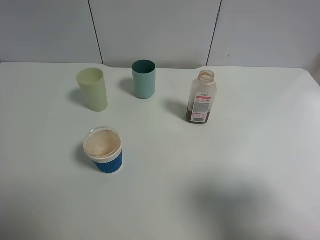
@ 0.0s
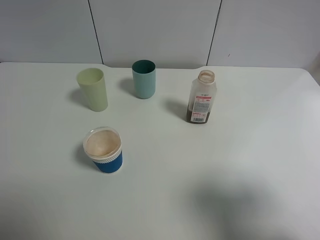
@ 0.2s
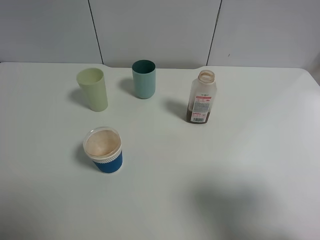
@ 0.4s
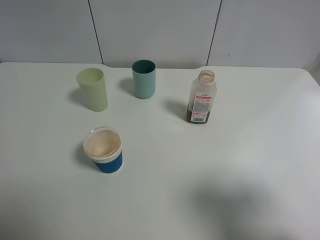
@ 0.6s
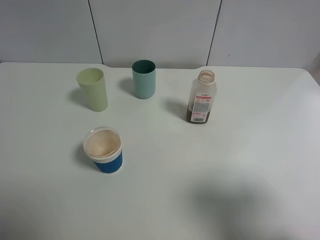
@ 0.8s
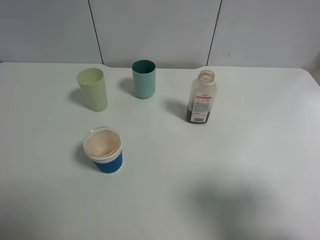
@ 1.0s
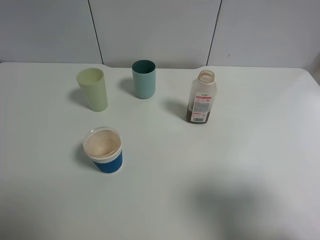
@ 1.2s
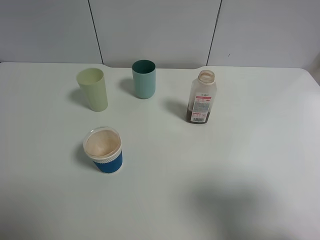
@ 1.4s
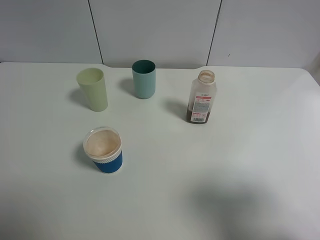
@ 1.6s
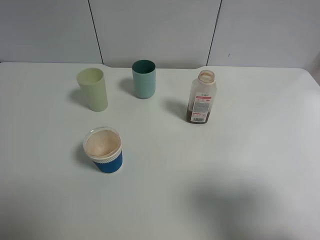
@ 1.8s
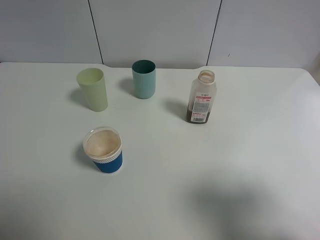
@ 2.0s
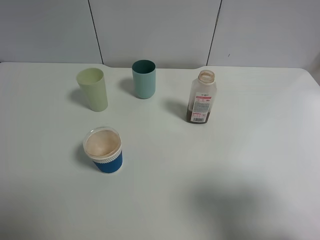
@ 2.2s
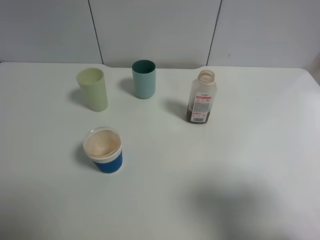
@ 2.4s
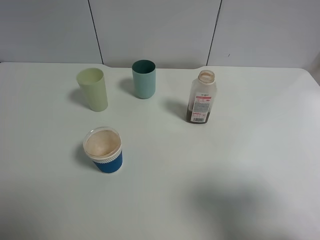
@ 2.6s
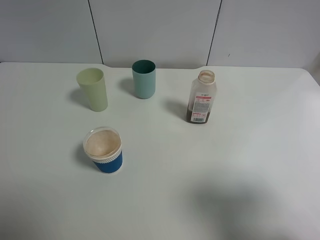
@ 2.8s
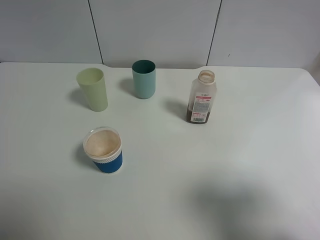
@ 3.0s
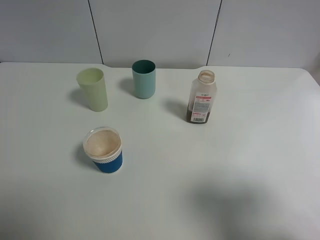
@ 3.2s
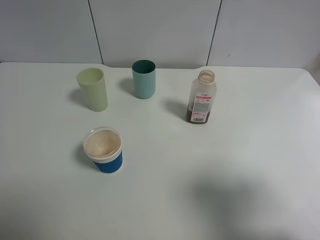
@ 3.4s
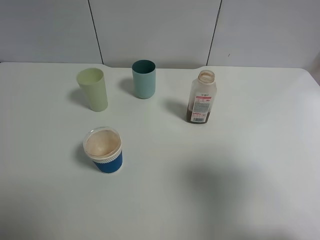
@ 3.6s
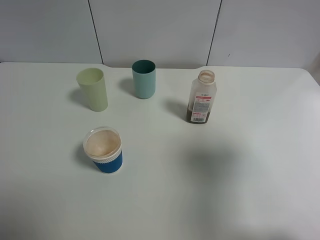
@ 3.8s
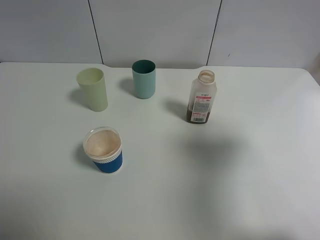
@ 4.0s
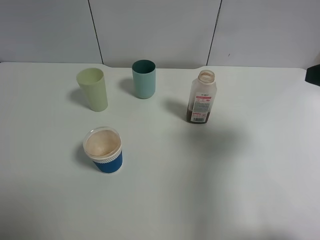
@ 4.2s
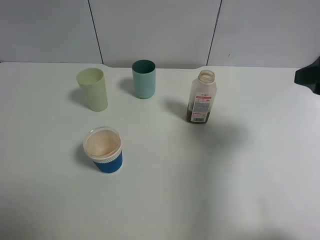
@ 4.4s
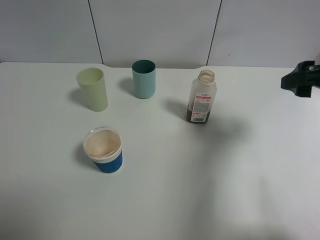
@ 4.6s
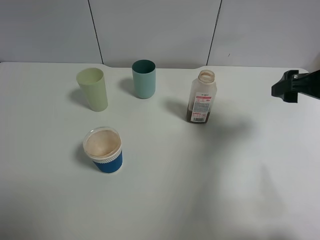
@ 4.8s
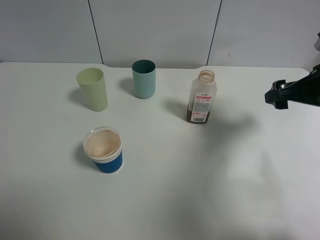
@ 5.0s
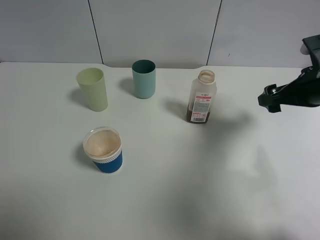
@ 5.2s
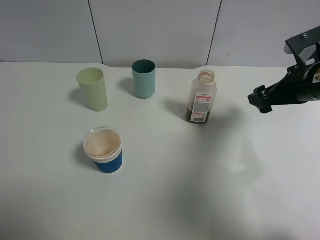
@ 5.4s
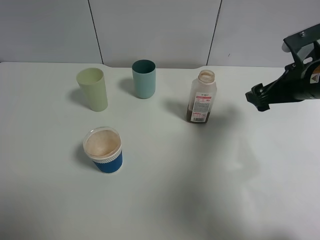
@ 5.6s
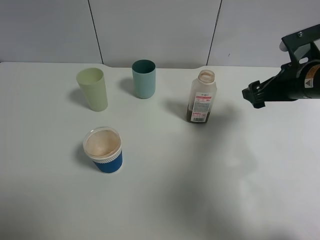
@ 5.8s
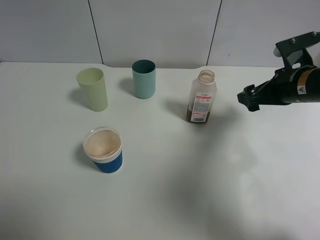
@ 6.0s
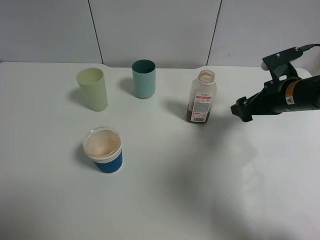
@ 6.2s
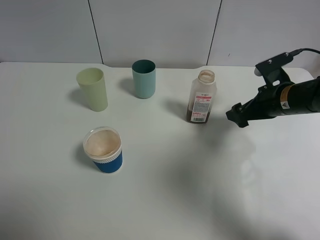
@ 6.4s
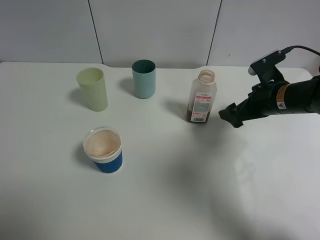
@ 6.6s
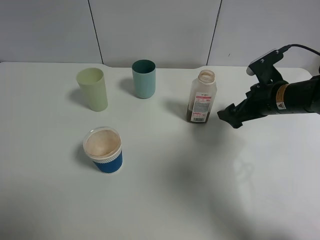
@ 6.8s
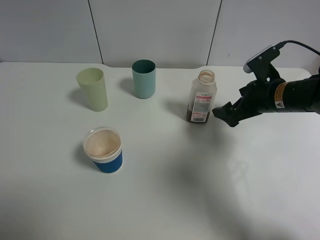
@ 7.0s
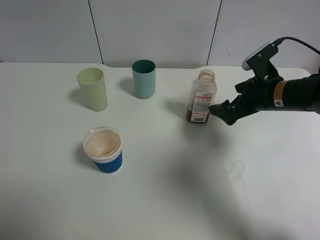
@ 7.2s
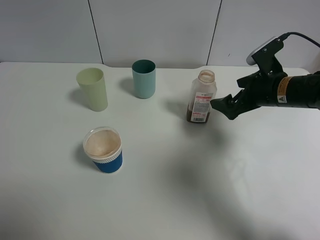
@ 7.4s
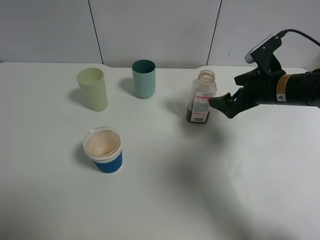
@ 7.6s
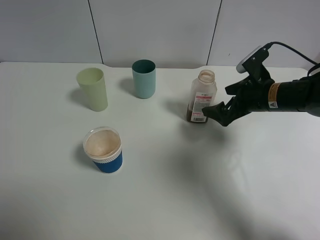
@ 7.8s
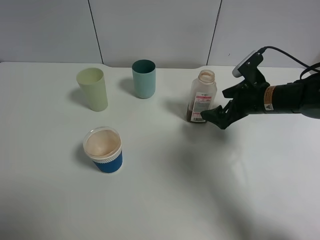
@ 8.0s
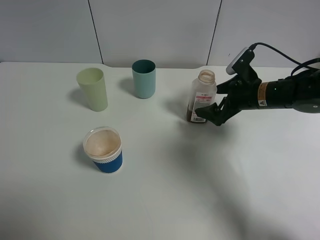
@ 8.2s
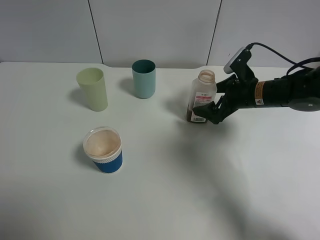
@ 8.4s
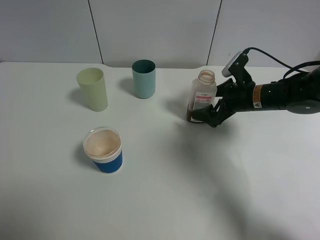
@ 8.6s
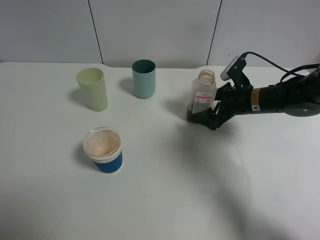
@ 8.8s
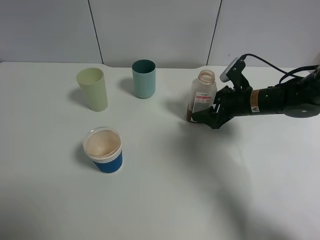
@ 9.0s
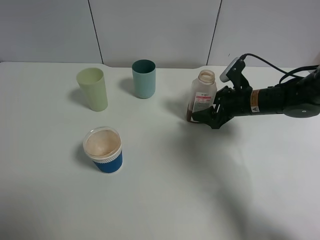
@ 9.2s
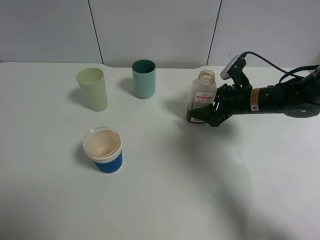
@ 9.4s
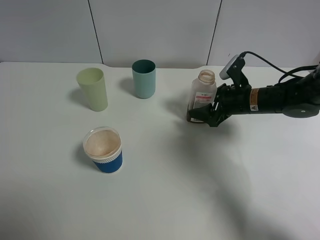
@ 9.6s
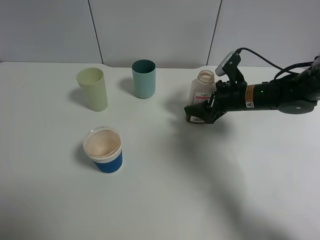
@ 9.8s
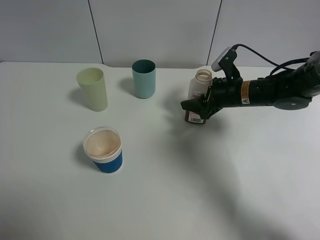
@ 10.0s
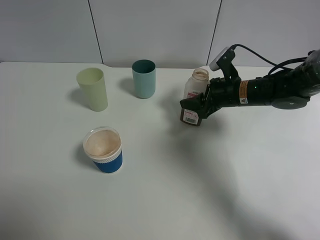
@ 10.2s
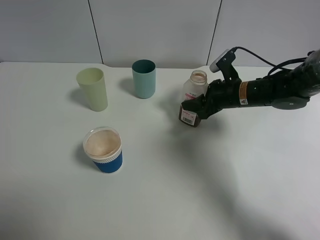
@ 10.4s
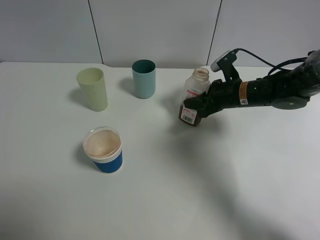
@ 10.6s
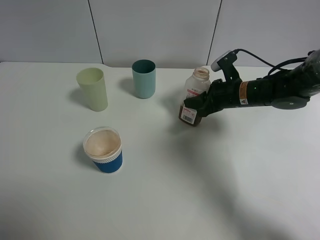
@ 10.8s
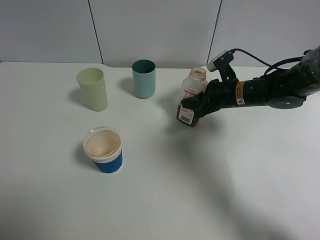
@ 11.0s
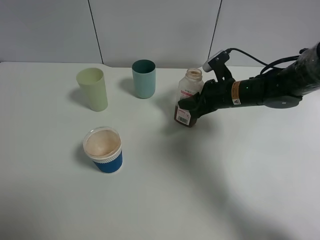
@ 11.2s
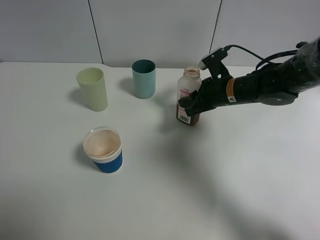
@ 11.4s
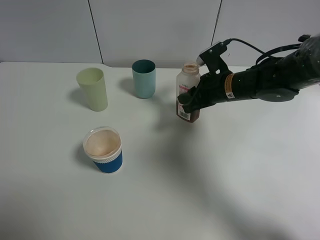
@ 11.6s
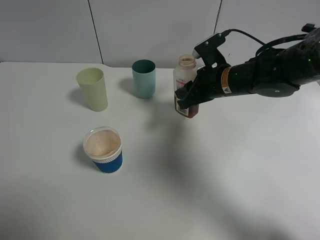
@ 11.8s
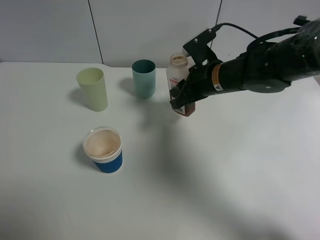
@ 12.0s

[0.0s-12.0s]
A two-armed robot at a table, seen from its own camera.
Task of the whole recording: use a gripper to hold the bottle of the drink and pour it into a random cup.
Step, 0.0s to 10.2s: Grasp the cranberry juice bottle with the right gripper.
0.0s to 3.0s: Both grippers stay put.
3.0s to 4.4s: The right gripper moves forward, roughly 15 cm.
4.4s to 6.0s: The right gripper heads downward and forward, covering roughly 15 cm.
7.6s to 9.0s: The right gripper heads downward, covering roughly 5 cm, and closes.
9.0s to 10.4s: There are only small adjustments of the grippers.
10.4s to 12.0s: The right gripper goes some 10 cm to the left and upward.

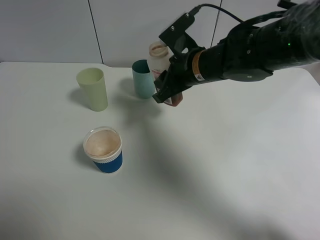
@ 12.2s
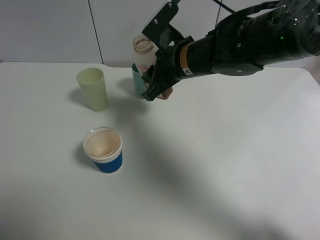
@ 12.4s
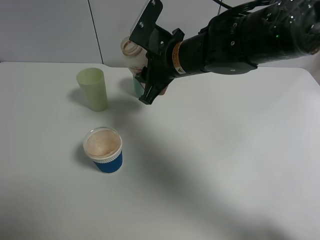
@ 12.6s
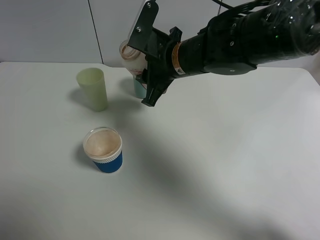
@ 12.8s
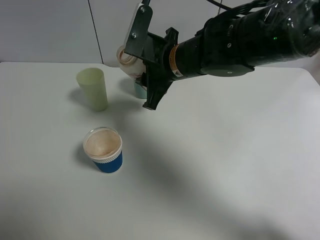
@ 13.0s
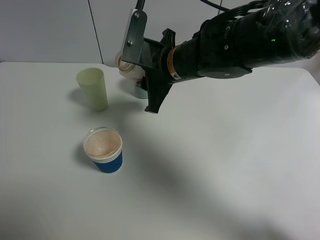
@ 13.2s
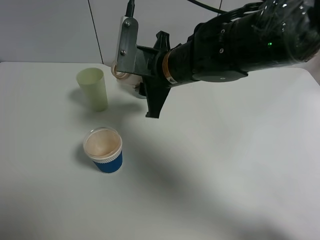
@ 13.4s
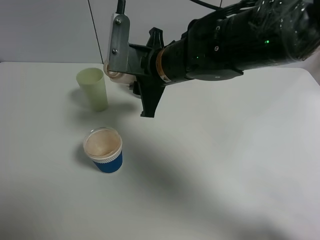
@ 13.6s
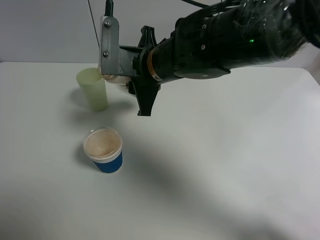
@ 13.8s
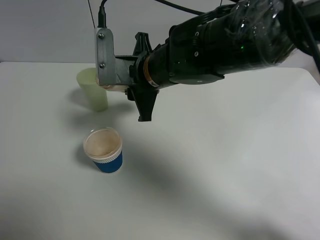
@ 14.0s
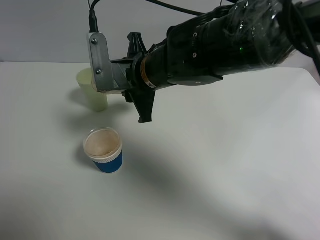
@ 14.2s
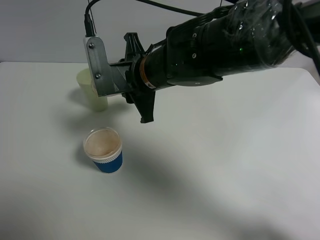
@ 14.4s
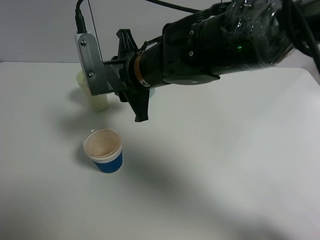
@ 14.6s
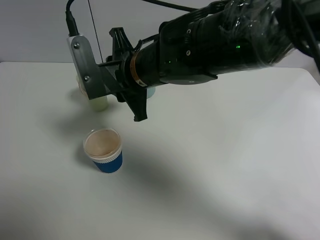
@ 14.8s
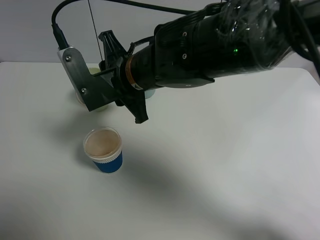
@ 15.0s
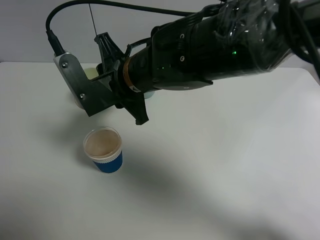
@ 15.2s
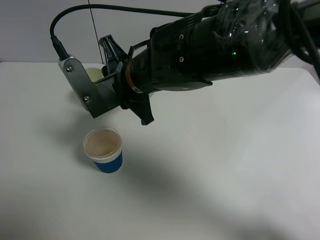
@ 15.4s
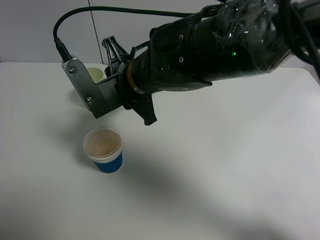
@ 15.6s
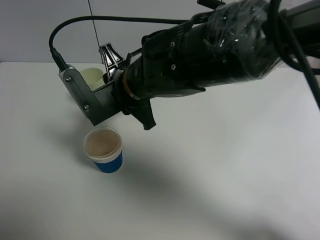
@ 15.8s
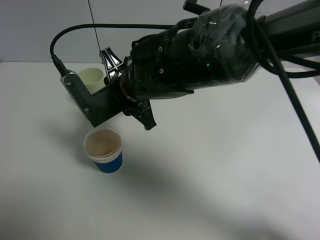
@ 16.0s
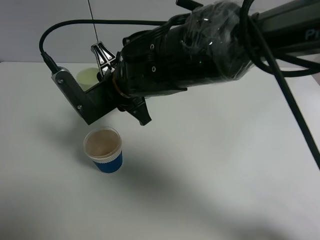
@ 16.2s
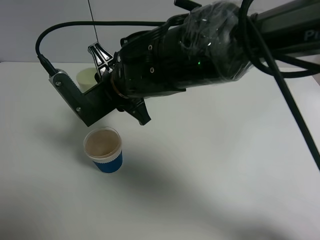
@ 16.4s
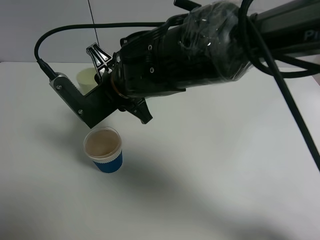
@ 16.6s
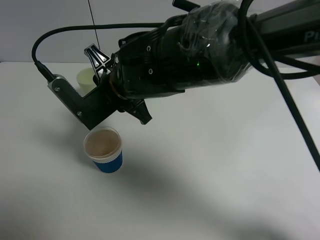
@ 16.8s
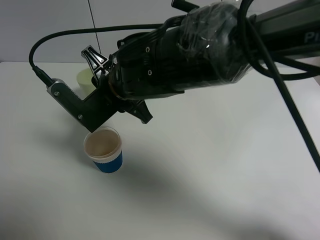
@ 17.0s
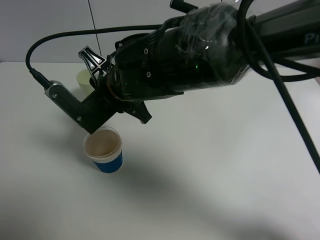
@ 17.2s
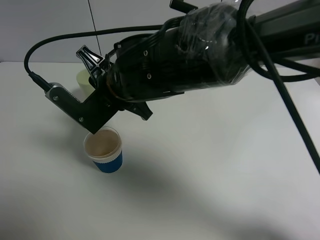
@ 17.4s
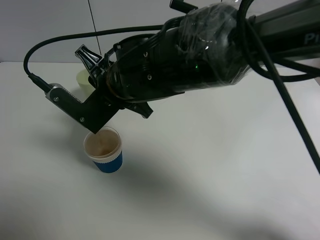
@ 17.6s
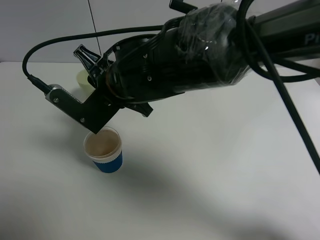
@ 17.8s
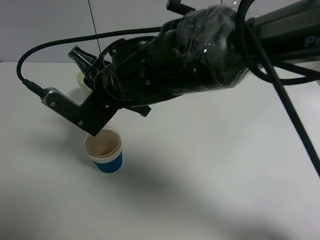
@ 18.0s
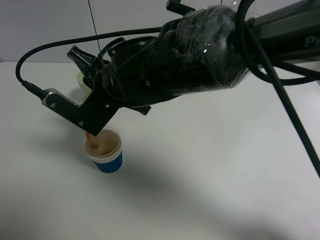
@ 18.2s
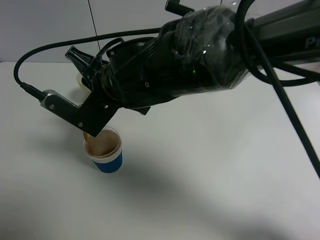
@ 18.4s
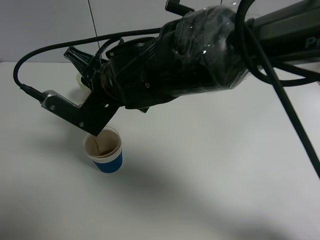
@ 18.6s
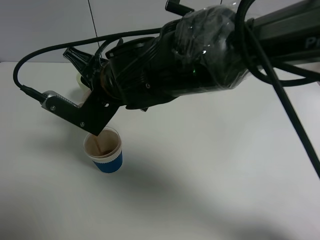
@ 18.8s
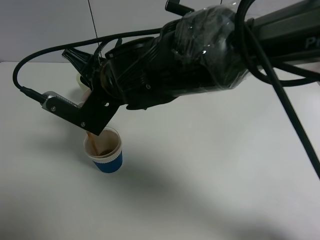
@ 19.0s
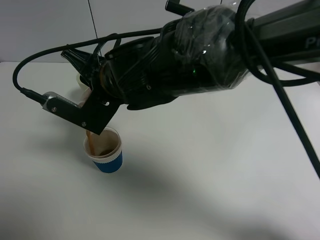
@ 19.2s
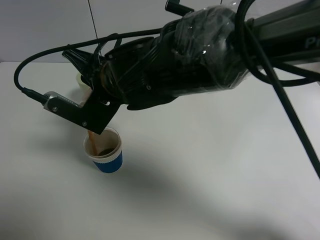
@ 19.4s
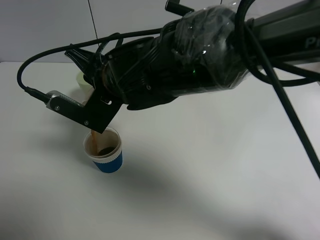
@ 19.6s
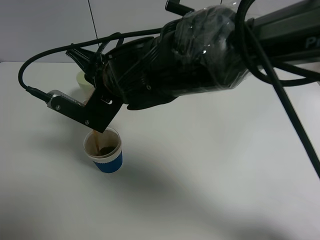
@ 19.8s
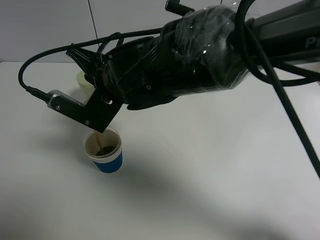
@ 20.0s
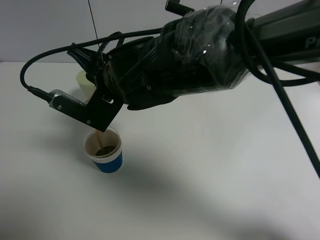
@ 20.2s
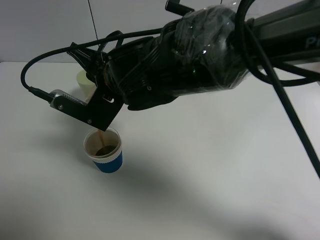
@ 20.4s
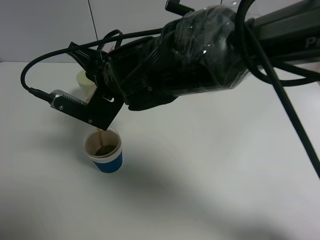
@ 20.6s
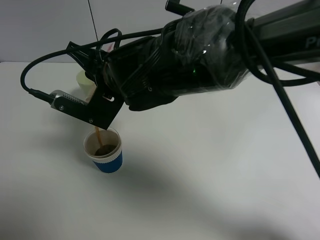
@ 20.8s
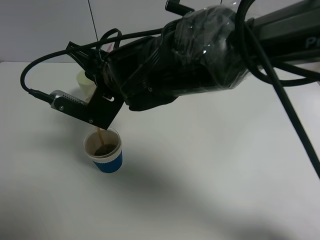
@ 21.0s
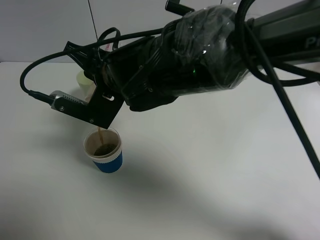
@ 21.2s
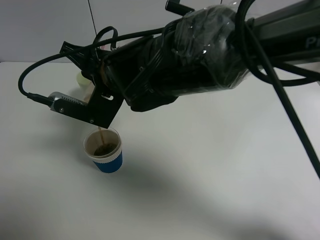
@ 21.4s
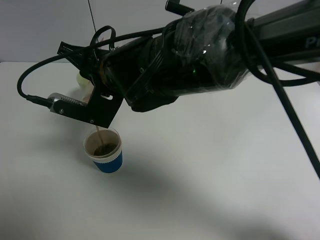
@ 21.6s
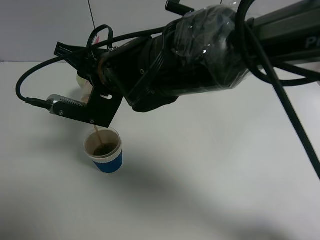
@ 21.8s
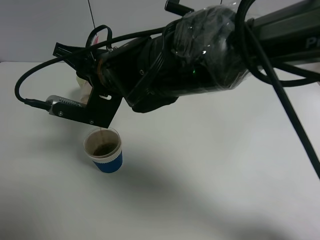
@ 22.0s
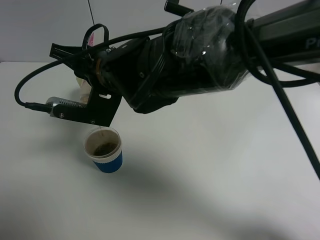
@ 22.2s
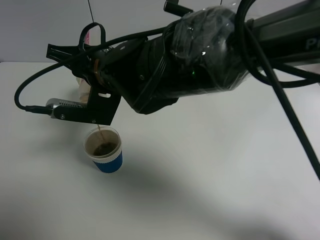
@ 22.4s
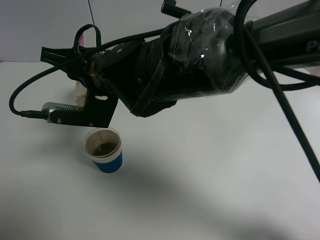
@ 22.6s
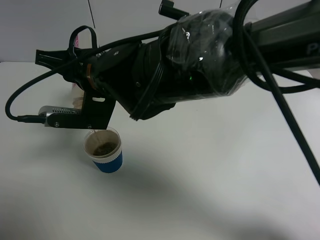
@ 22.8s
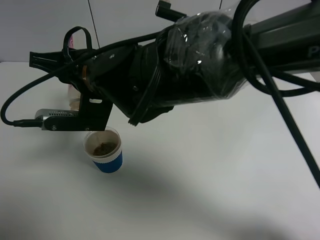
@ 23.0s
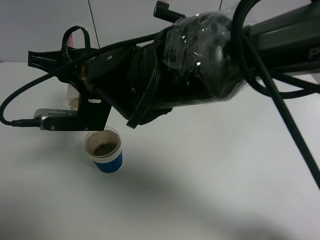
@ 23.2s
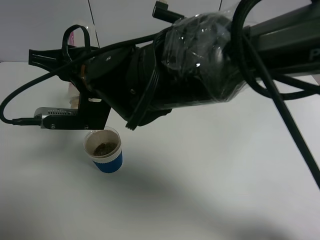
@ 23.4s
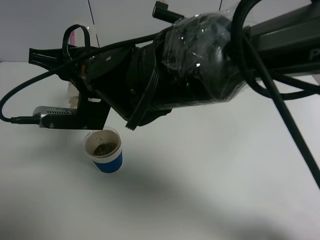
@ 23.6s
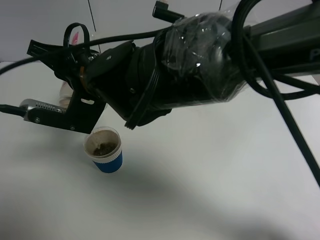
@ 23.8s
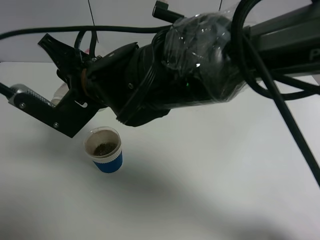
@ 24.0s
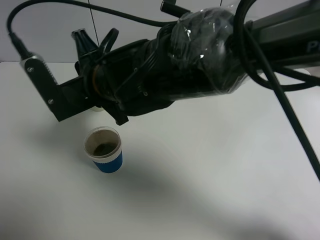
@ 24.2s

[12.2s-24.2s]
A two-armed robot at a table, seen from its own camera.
Task of the whole recording: use a gripper to hold the bottle of the drink and pour it into a random cup.
Step, 12.2s to 22.4s: Pour the cranberry juice into the paper cup with the right gripper.
12.2s to 13.8s: The right gripper is displaced to the left by about 5 cm.
15.2s to 16.6s: The grippers move only a little.
16.6s to 18.2s: There are only small adjustments of the grippers.
18.2s to 21.2s: The grippers stay close to where they were, moving slightly.
21.2s to 22.6s: There are only small adjustments of the grippers.
